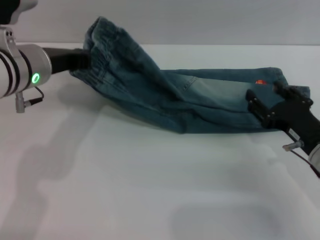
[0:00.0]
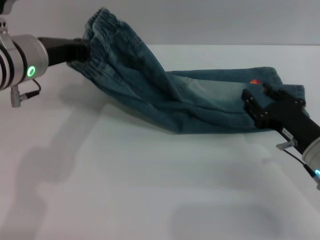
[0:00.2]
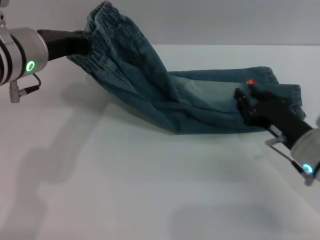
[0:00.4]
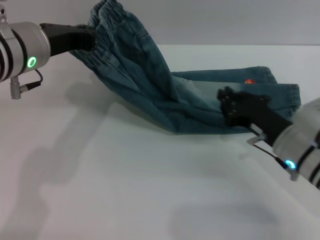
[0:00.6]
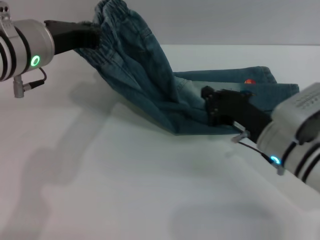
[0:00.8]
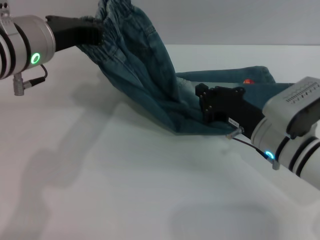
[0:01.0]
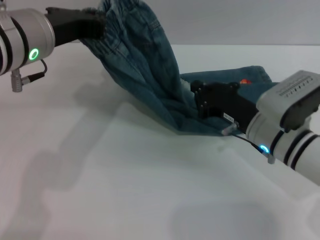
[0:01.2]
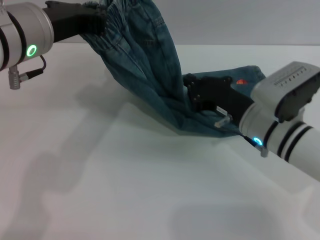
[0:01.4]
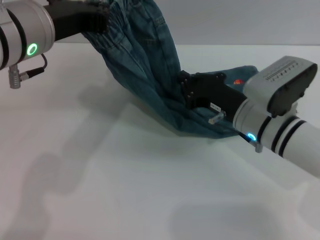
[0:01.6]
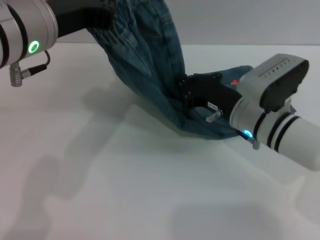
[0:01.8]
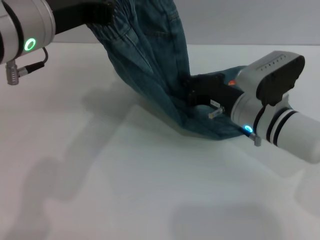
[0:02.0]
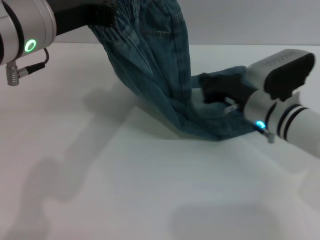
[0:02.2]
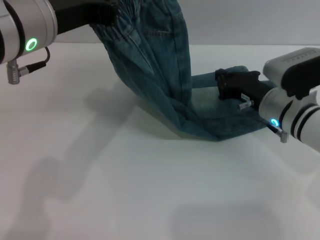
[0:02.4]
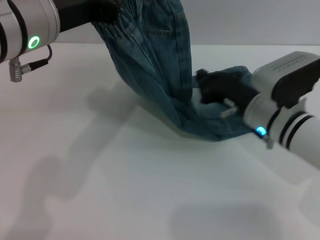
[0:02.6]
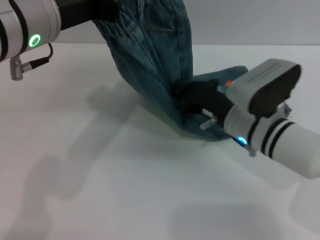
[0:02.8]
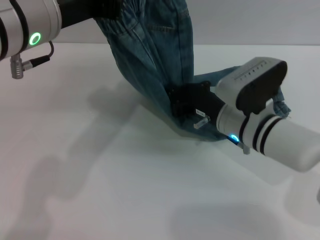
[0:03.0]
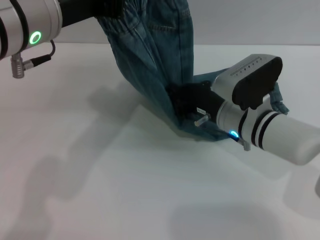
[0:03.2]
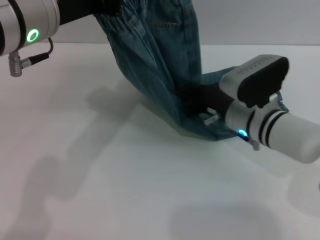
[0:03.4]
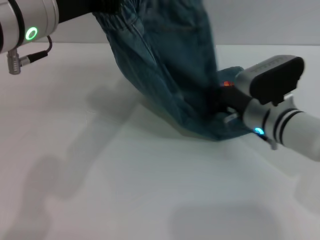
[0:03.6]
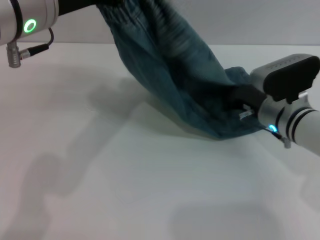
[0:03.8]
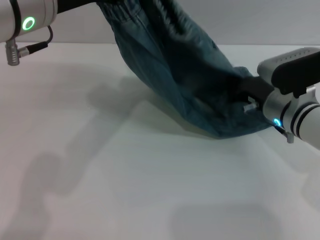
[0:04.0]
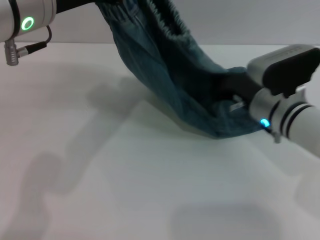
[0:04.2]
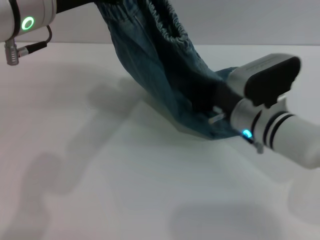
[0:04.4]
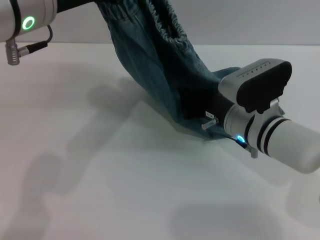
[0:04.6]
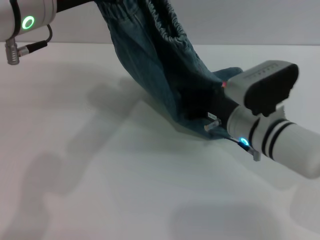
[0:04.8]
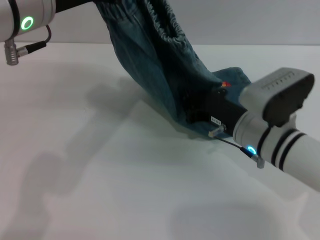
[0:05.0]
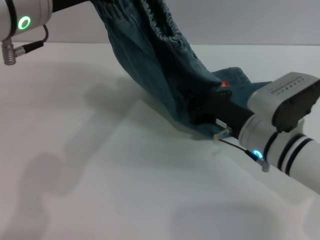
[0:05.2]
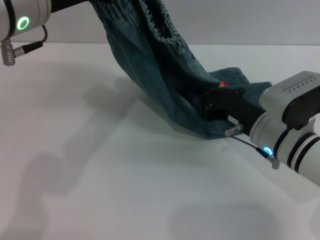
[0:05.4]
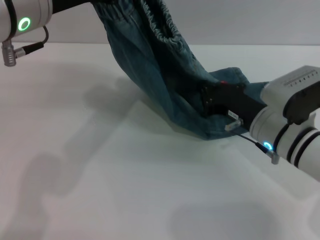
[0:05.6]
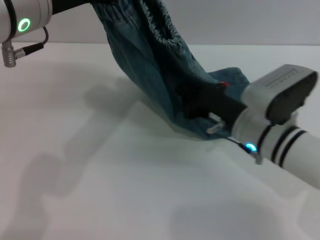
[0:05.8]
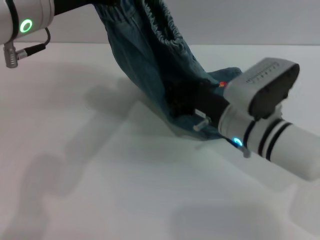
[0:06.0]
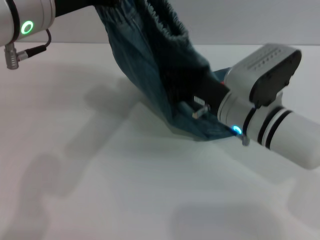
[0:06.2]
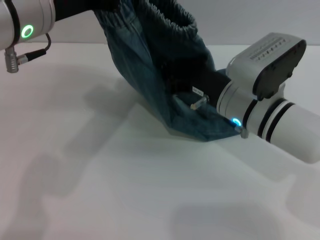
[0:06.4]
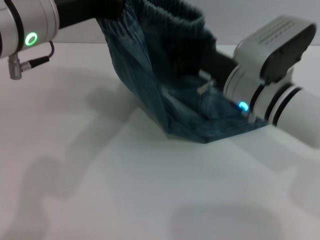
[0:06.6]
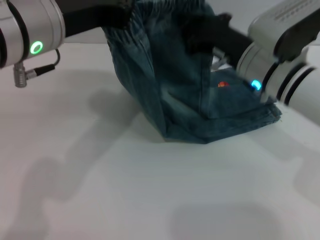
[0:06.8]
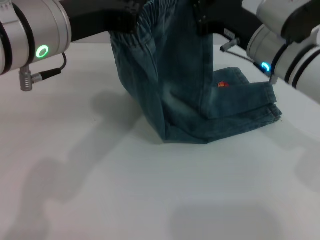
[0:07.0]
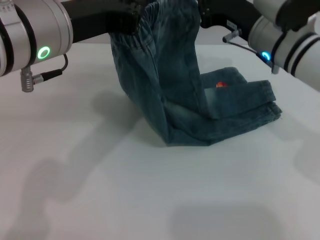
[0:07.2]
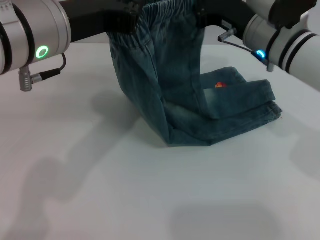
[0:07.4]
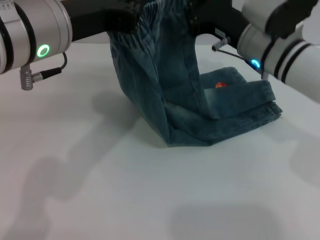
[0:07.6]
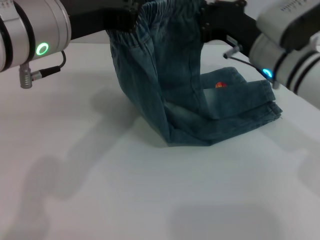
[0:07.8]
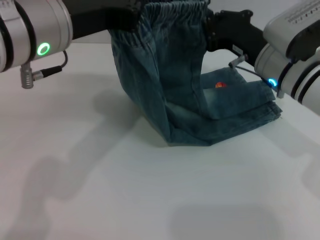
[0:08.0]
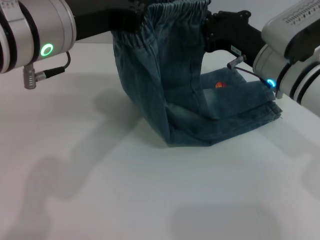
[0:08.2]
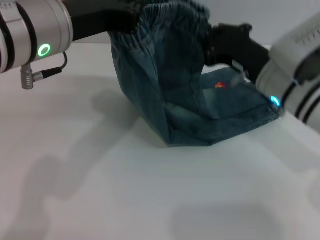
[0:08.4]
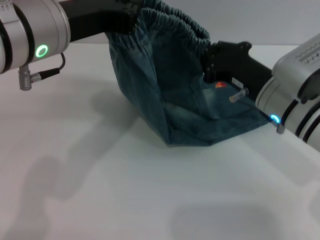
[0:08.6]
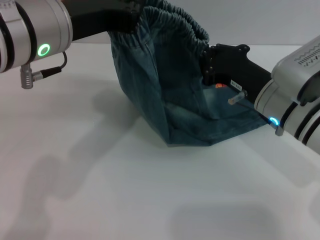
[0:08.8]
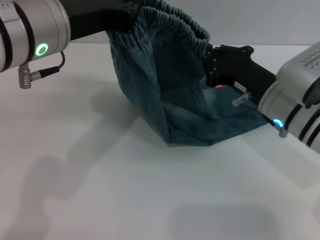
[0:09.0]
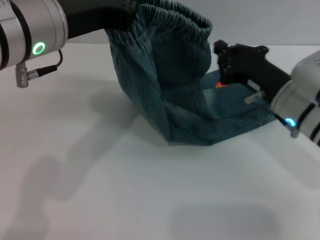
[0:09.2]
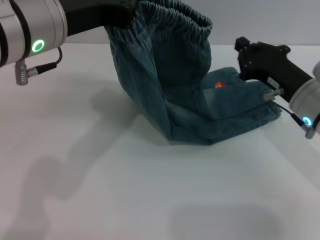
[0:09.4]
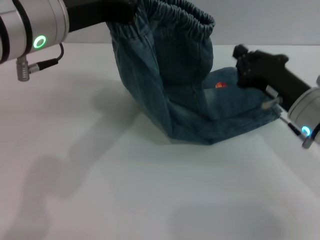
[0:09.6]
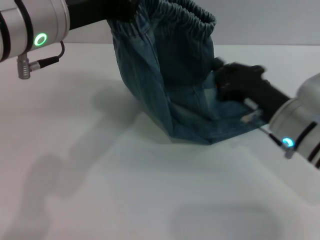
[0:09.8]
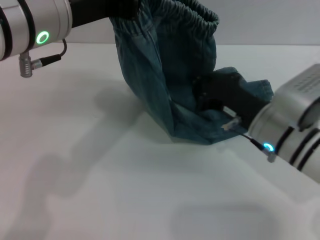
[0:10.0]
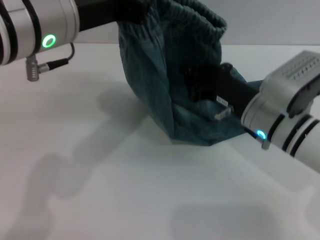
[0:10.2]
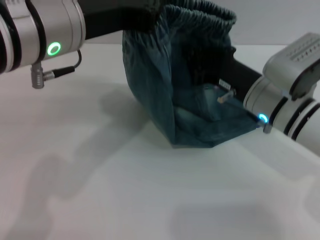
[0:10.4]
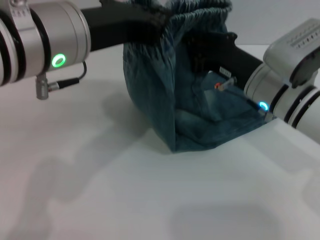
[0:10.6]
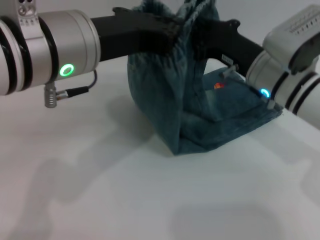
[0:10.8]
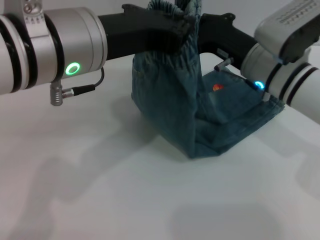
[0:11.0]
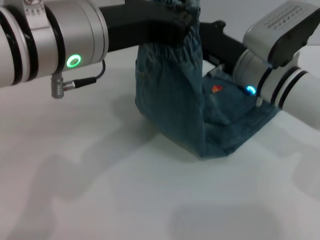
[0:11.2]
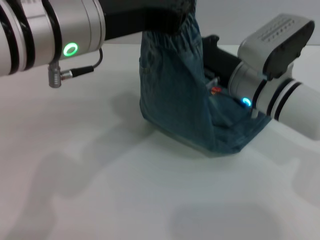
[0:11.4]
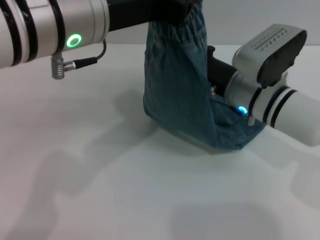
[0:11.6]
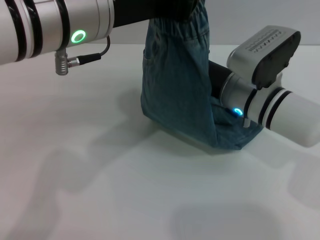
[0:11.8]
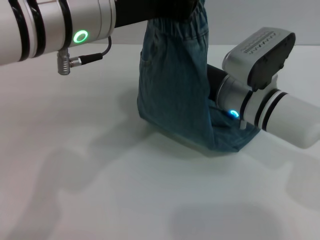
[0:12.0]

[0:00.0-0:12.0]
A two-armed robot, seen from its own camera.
0.0 to 1.6 s: The right gripper is displaced to the left and forward by approximately 10 cm, and closes its fingers. Meanwhile the left gripper shifts about 10 cm upward.
4.4 to 6.0 s: The grippers make only small movements.
6.0 to 7.6 s: The right gripper is displaced forward and upward by roughly 10 cm.
7.6 to 9.0 s: The right gripper travels backward by approximately 5 cm.
9.0 to 10.4 s: The grippers make only small movements.

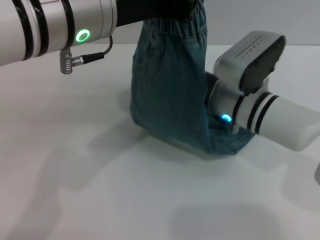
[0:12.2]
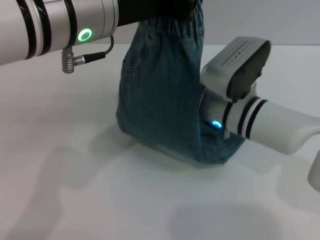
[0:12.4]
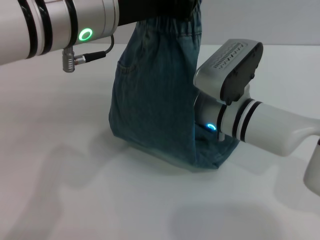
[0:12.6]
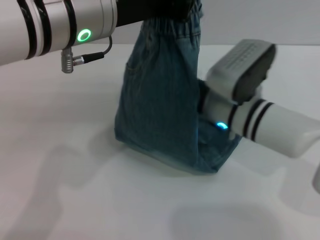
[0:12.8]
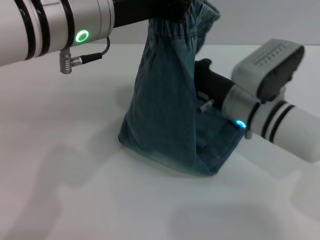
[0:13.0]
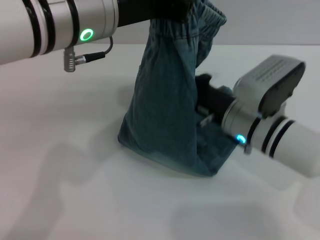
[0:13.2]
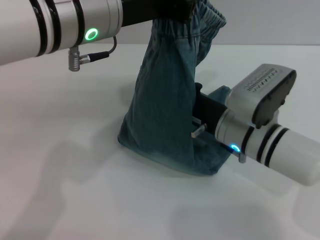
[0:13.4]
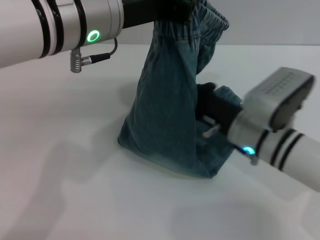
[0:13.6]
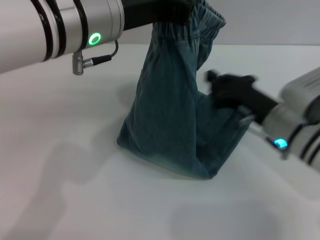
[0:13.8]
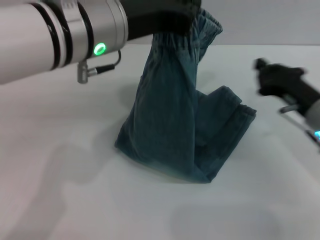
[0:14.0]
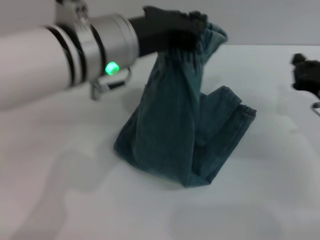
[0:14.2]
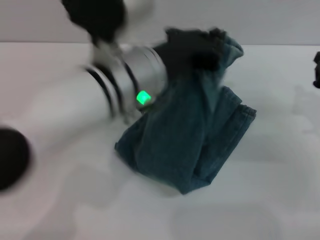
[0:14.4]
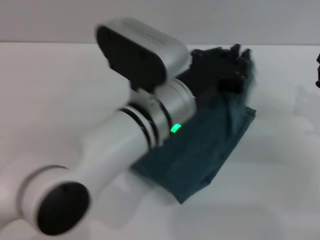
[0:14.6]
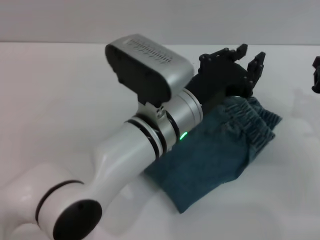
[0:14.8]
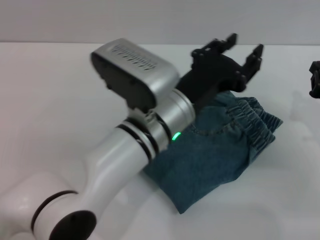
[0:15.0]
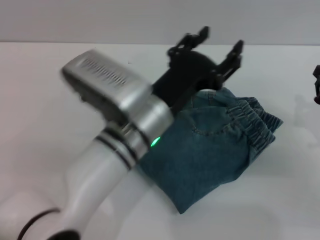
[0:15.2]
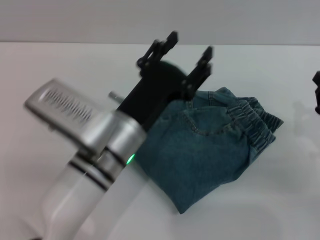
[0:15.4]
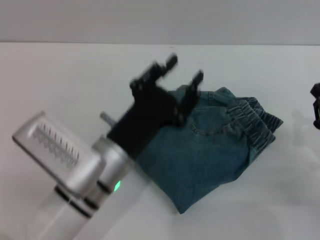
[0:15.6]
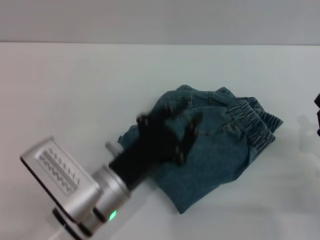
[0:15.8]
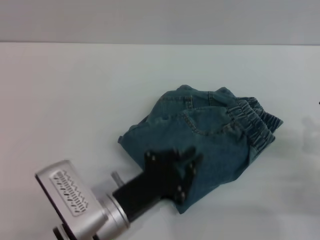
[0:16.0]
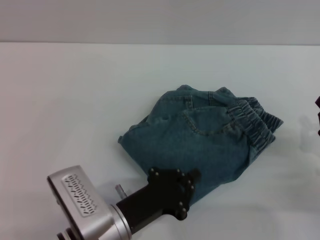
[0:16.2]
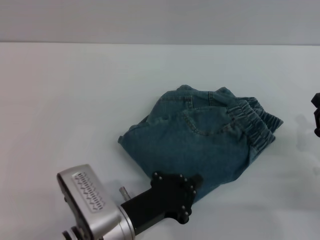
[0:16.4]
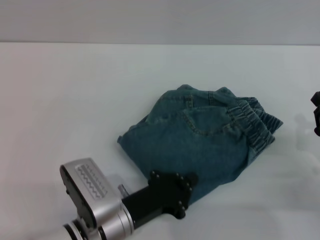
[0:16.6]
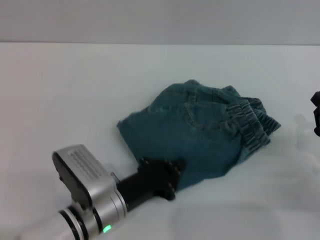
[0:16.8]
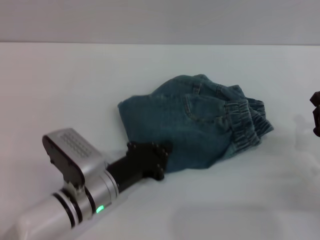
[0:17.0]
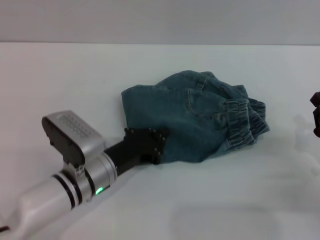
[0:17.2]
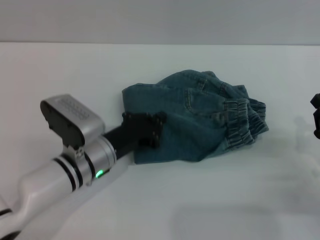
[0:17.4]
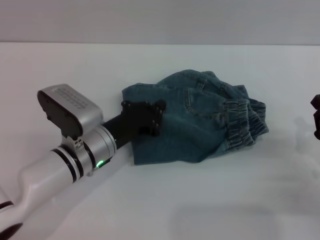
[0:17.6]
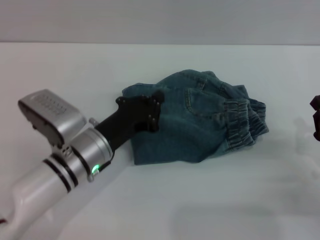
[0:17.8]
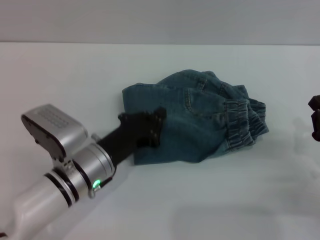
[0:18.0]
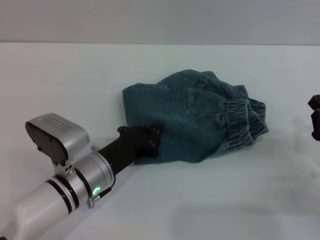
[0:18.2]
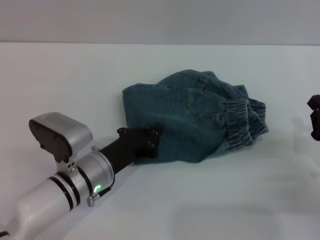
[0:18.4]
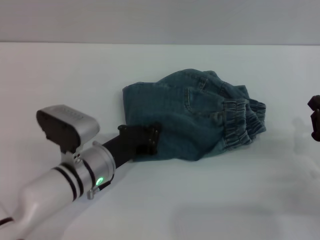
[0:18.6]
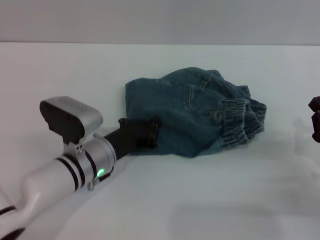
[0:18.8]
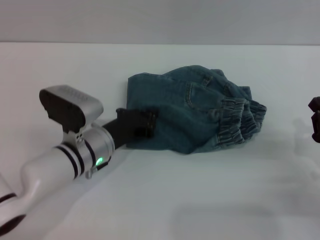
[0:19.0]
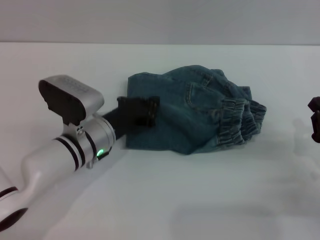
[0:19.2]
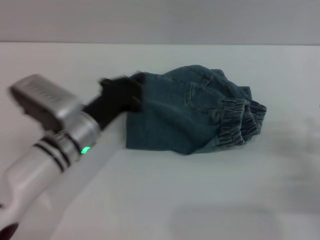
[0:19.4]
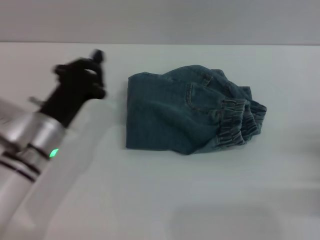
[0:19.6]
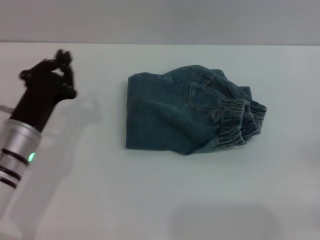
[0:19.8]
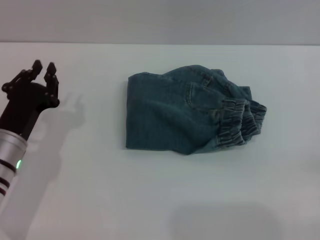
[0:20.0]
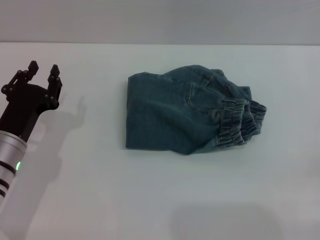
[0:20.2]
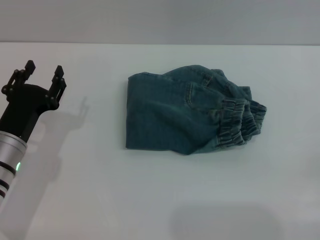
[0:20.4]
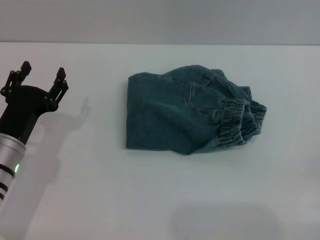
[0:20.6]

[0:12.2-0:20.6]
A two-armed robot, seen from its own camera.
Step, 12.2 to 14.8 s: Fold the pants from left to right with the left gripper.
Step, 15.0 to 19.4 s: Place the folded trousers onto the center area with the left grippers.
12.2 to 13.6 s: The right gripper changes place by approximately 5 cm.
13.6 to 15.0 s: The left gripper heads downward and to the right, covering some 15 cm. Meanwhile the right gripper shifts about 15 cm to the right.
15.0 to 16.4 s: The right gripper shifts about 5 cm backward. Meanwhile the left gripper is displaced downward, backward and to the left by about 15 cm, and opens, then closes again.
16.4 to 17.8 s: The left gripper moves forward, roughly 10 cm.
17.8 to 19.2 s: The grippers stay close to where they were, moving slightly.
19.2 to 20.6 s: The right gripper goes approximately 10 cm backward and to the right, and opens up. The left gripper goes roughly 10 cm to the left and backward, and opens up.

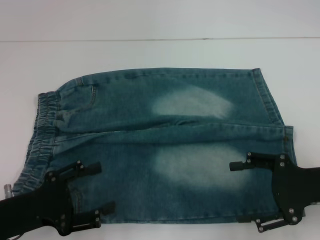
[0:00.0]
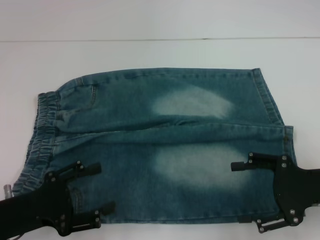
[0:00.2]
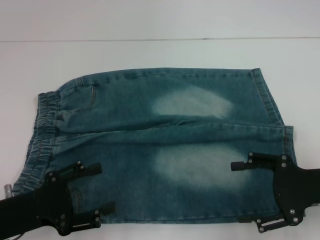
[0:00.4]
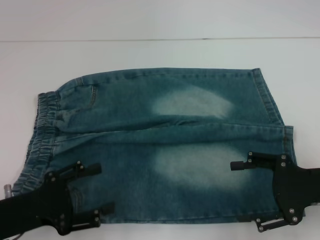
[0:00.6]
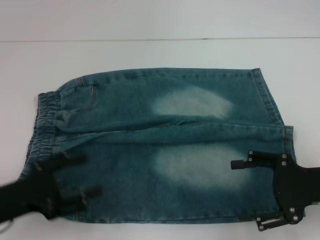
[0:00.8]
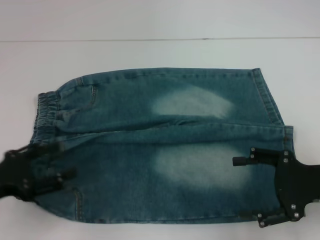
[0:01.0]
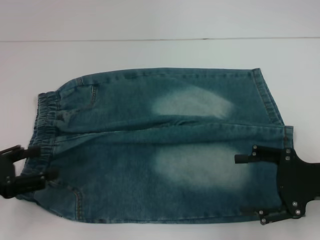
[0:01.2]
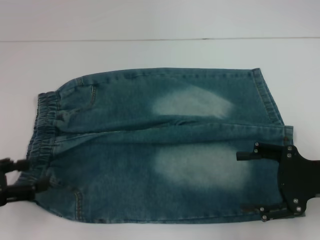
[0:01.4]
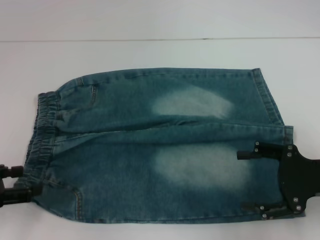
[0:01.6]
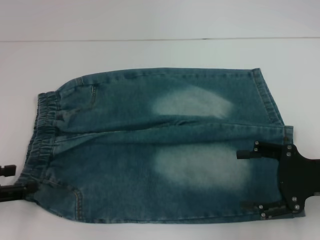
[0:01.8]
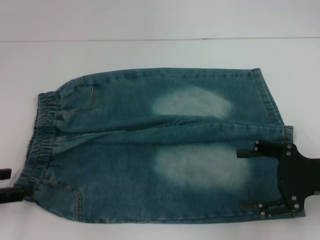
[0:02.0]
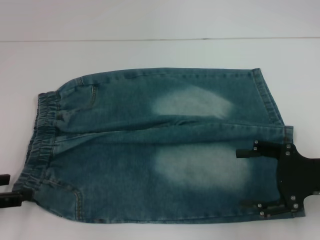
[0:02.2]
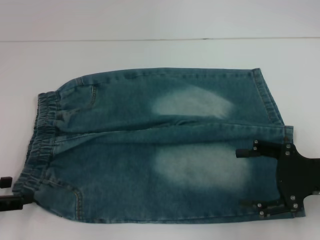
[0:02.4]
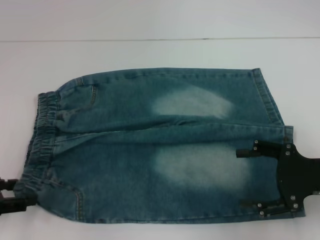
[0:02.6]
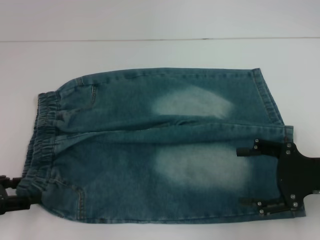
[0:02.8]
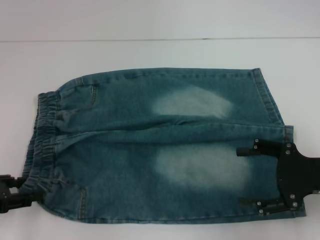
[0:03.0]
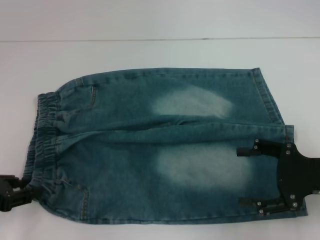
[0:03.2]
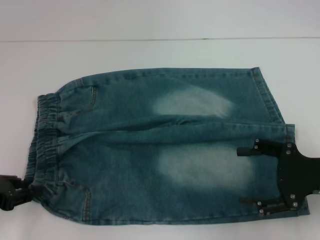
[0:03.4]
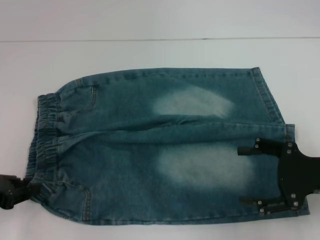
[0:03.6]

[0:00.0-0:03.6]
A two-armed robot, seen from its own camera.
0.0 to 1.8 s: The left gripper travels to the left and upward by roughly 10 cm.
1.8 to 3.6 s: The left gripper closes its fingers.
